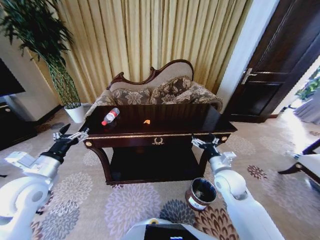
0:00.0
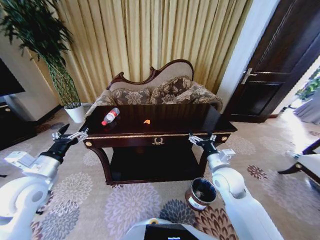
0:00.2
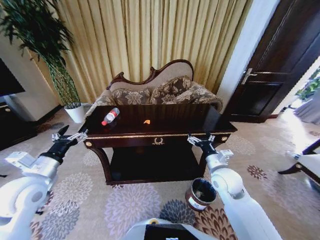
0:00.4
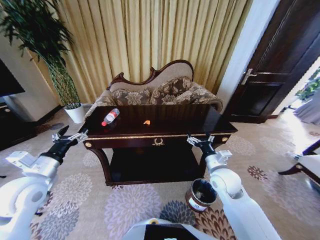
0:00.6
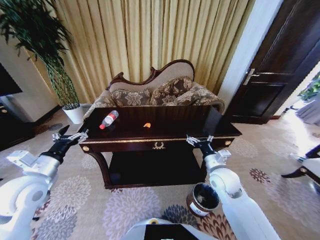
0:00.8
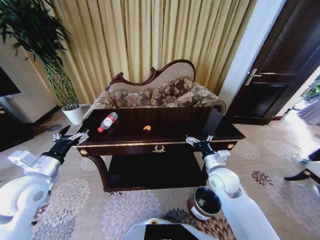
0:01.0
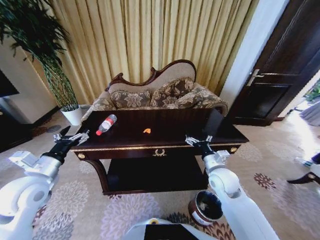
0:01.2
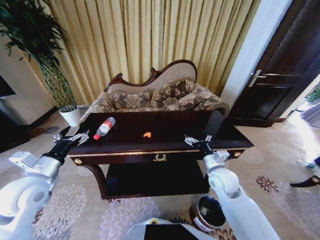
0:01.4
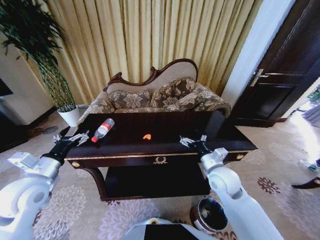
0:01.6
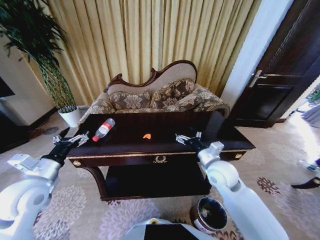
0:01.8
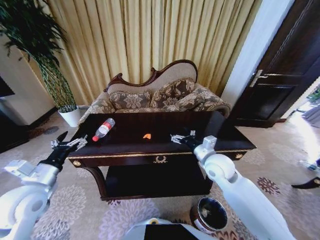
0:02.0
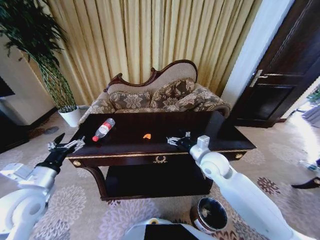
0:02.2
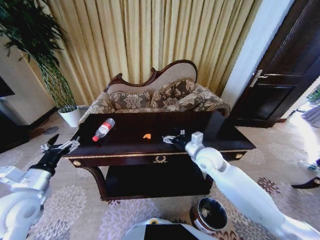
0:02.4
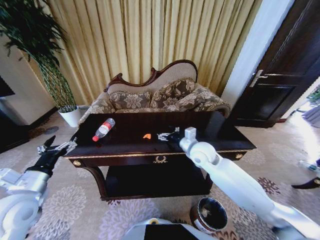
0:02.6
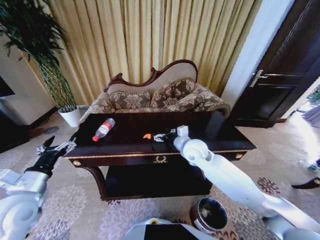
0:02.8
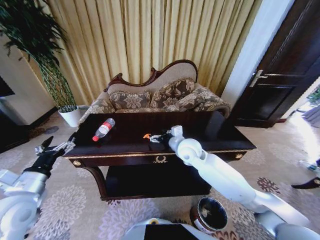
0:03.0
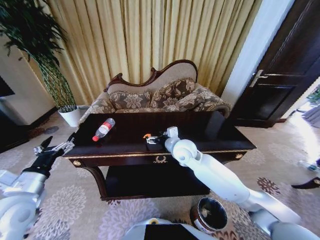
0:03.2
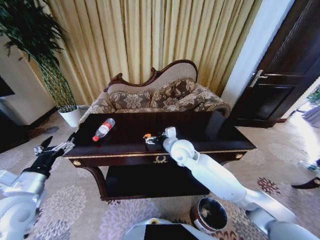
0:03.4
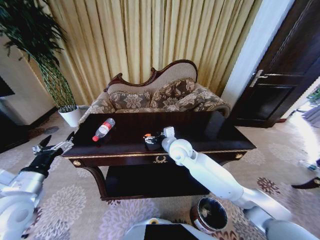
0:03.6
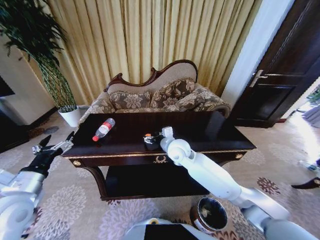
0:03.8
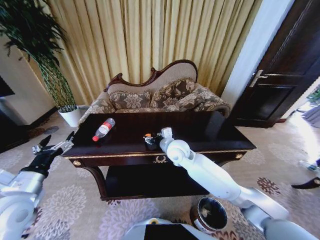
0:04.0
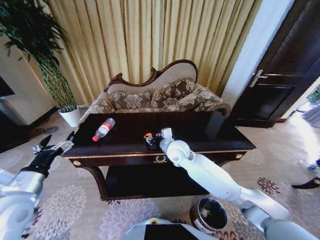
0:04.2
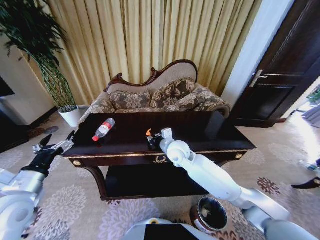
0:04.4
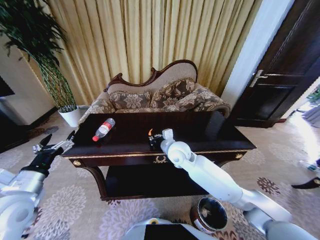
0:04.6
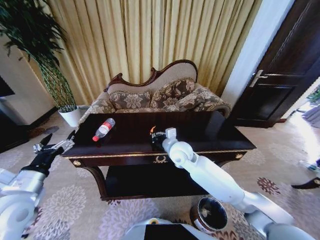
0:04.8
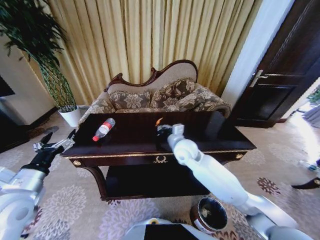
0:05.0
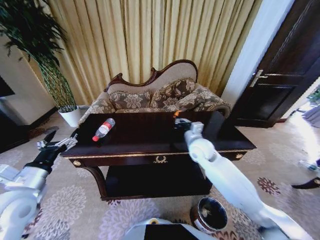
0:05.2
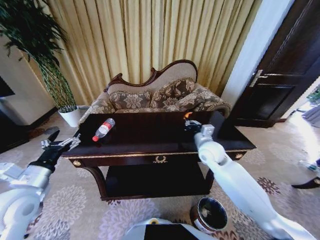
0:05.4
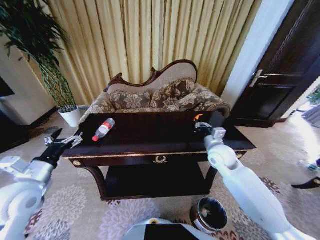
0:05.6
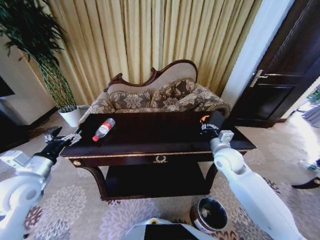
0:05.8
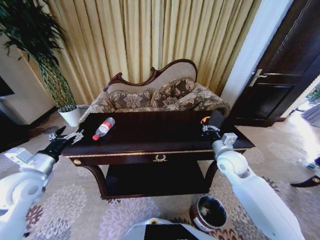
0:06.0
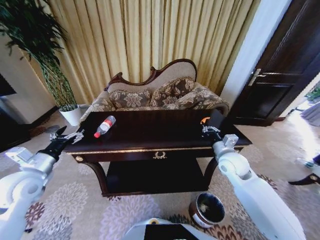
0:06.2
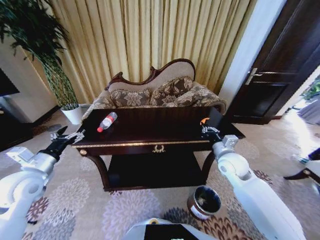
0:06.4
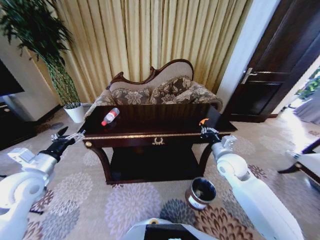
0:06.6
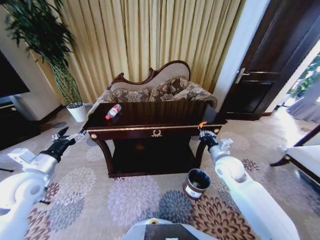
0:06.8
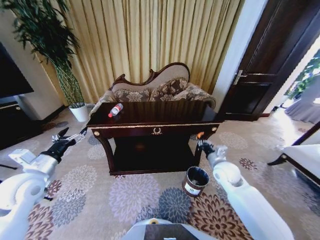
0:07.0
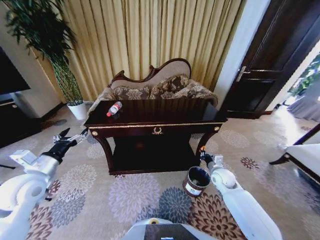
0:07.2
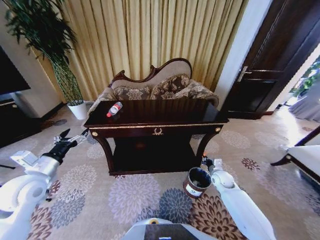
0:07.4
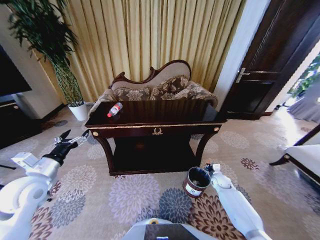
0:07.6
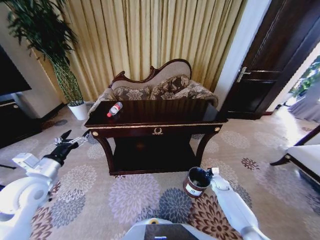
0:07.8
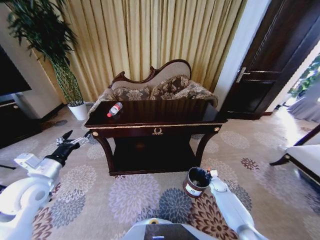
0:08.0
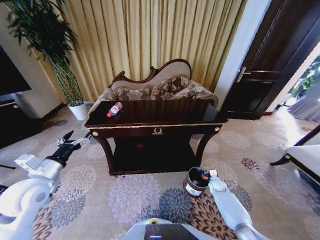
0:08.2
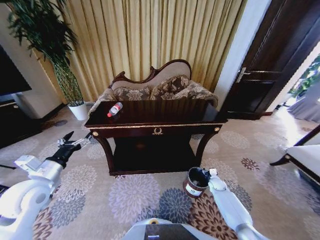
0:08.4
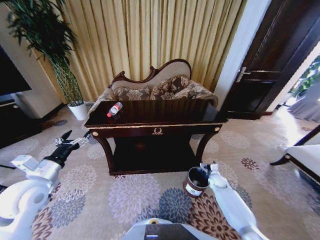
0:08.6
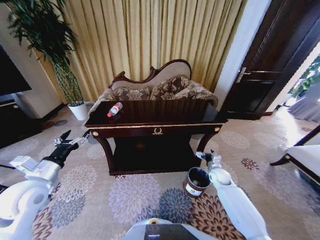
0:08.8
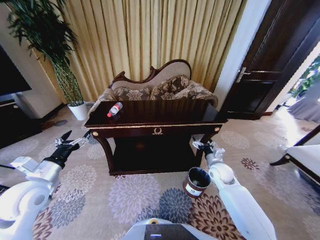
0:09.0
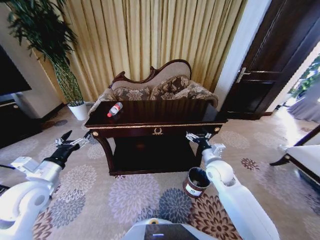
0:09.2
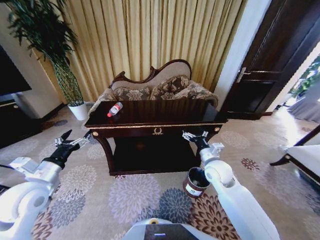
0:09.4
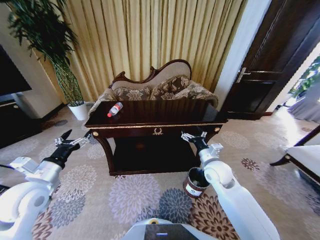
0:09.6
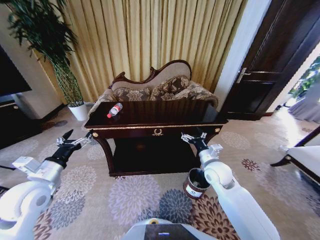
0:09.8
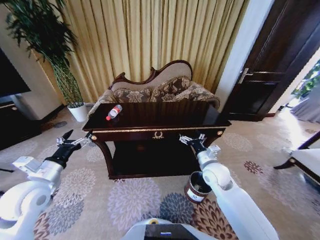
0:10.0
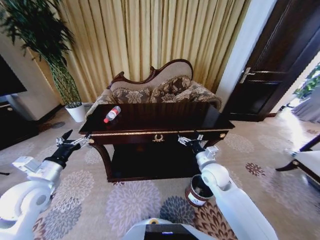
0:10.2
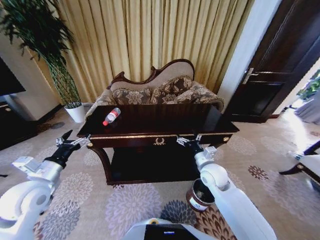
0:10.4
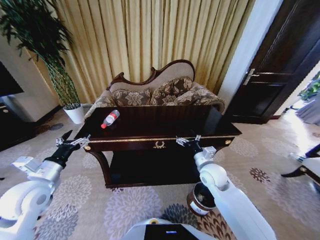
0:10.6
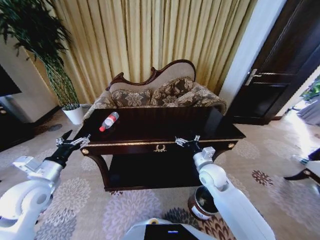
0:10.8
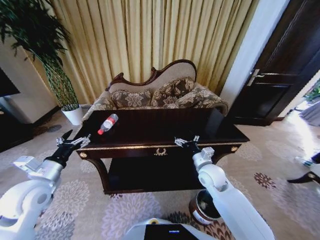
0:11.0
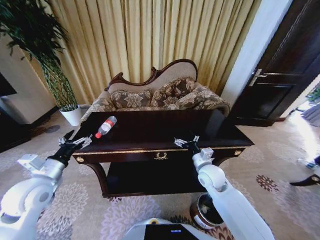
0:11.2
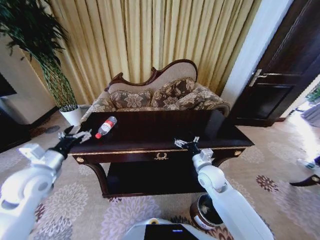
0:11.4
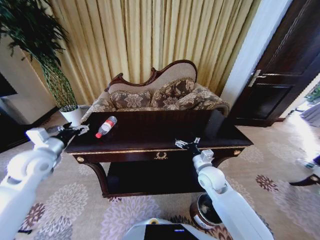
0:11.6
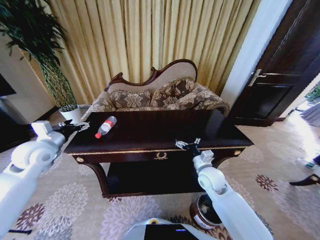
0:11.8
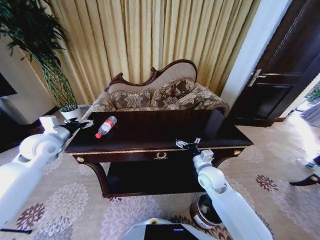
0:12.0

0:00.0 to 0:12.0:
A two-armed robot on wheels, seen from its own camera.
Task of the whole recording: Move to the front of the table and place the trash on the table into the trash bin.
0:01.6 to 0:03.0: The right gripper heads to the left and forward, covering some 15 cm.
0:03.0 to 0:04.4: The right gripper closes.
0:04.4 to 0:06.0: The right gripper travels to the right by about 20 cm; the left gripper shifts about 5 cm forward.
0:06.0 to 0:07.6: The right gripper is displaced downward by roughly 25 cm.
0:07.6 to 0:09.0: The right gripper heads upward and to the left, covering some 20 cm, and opens.
0:09.0 to 0:10.4: The right gripper heads to the left and upward, covering some 10 cm.
0:10.4 to 0:12.0: The left gripper goes about 15 cm forward.

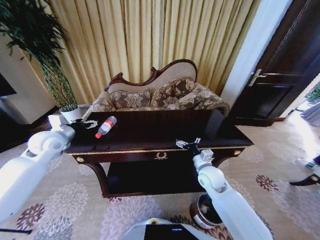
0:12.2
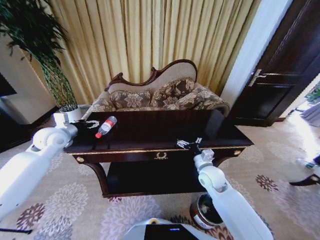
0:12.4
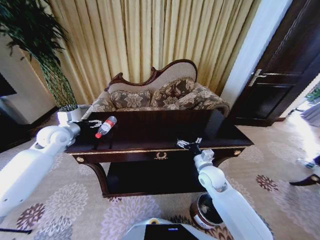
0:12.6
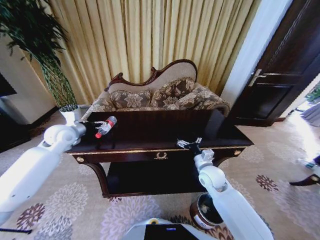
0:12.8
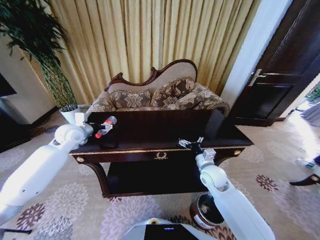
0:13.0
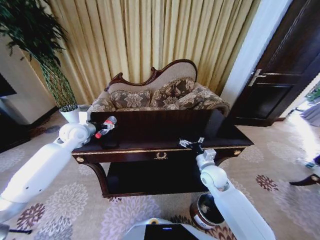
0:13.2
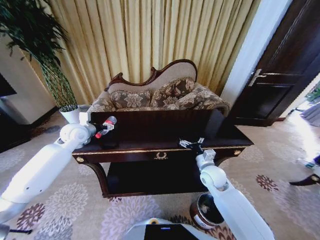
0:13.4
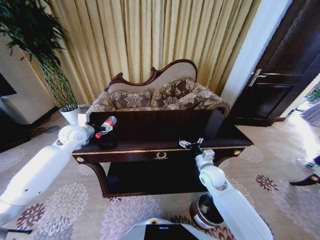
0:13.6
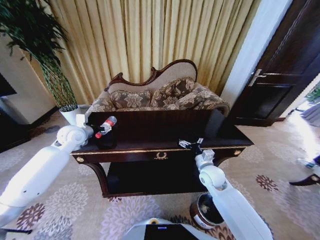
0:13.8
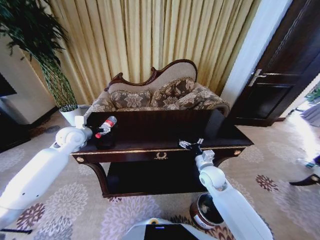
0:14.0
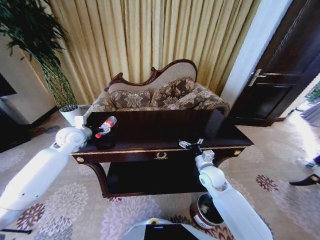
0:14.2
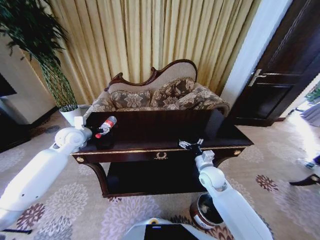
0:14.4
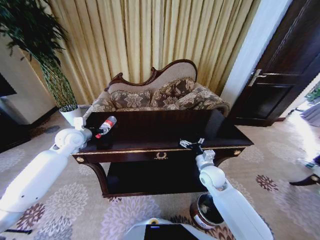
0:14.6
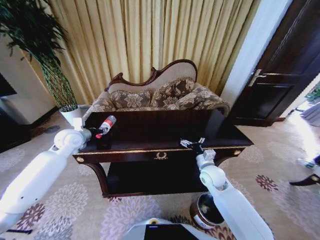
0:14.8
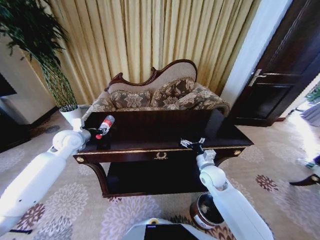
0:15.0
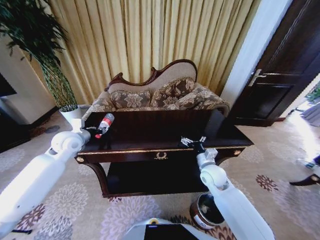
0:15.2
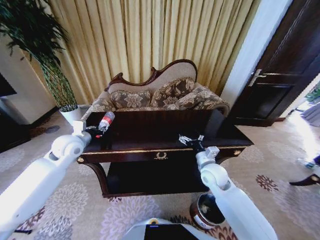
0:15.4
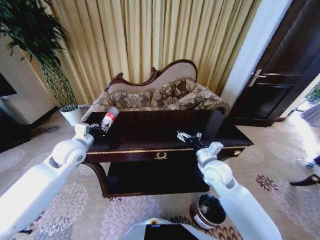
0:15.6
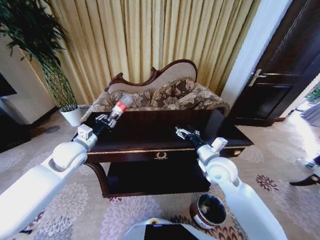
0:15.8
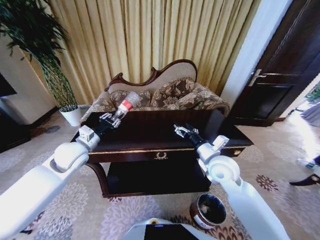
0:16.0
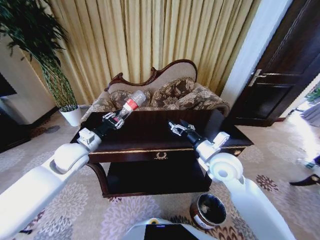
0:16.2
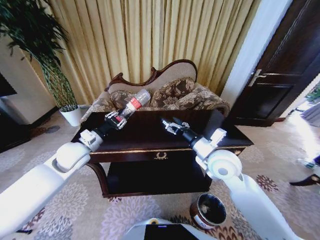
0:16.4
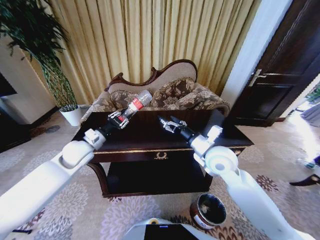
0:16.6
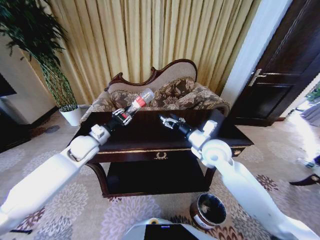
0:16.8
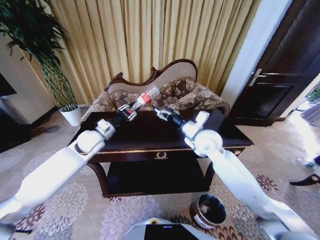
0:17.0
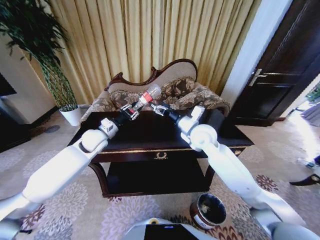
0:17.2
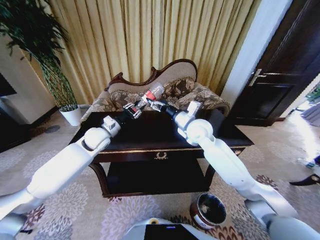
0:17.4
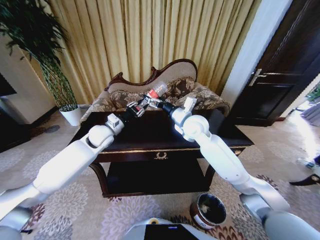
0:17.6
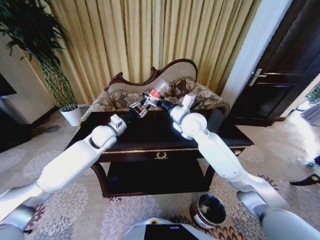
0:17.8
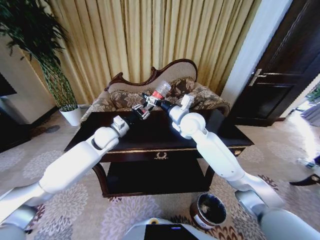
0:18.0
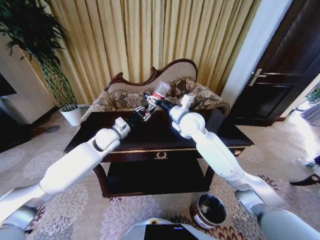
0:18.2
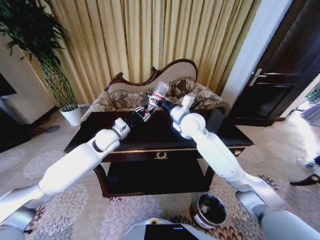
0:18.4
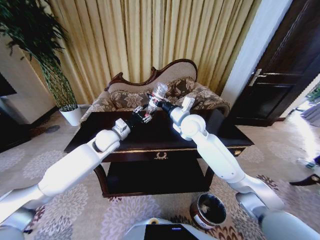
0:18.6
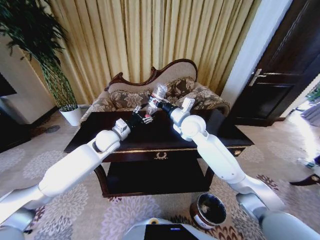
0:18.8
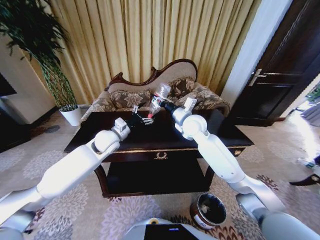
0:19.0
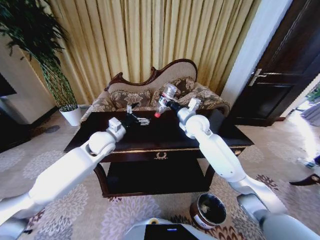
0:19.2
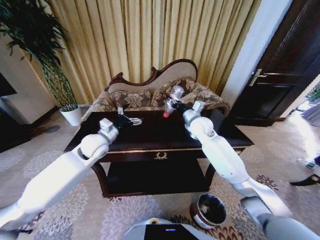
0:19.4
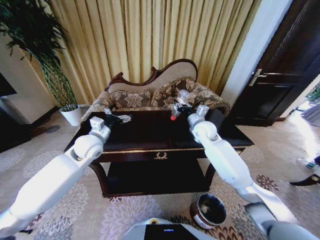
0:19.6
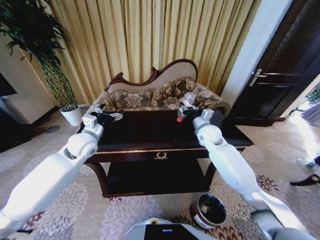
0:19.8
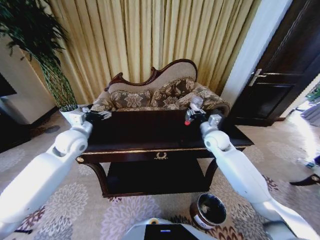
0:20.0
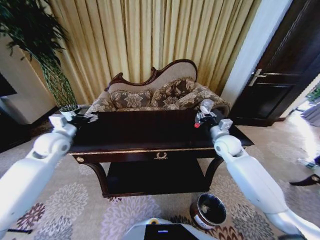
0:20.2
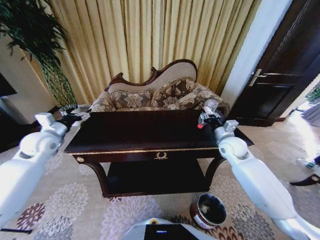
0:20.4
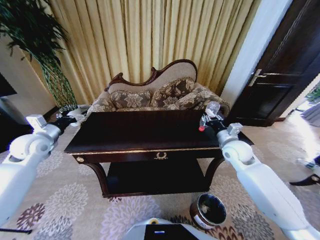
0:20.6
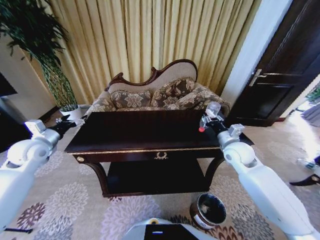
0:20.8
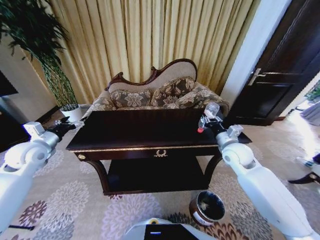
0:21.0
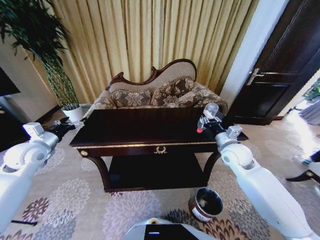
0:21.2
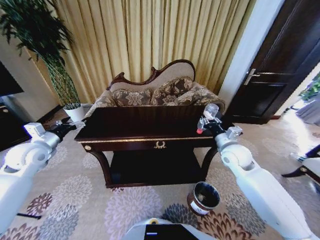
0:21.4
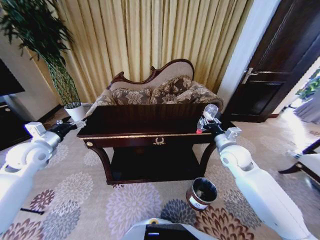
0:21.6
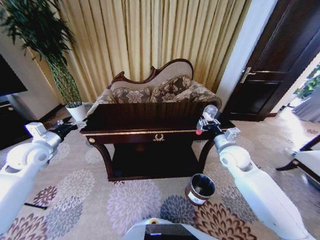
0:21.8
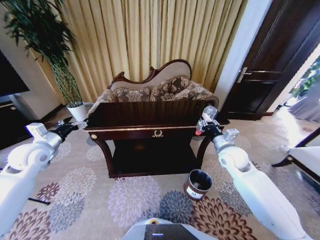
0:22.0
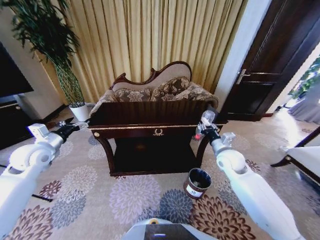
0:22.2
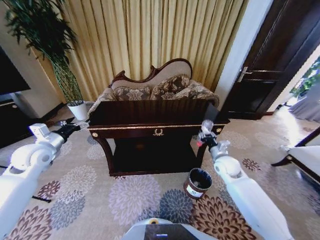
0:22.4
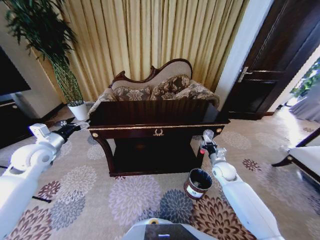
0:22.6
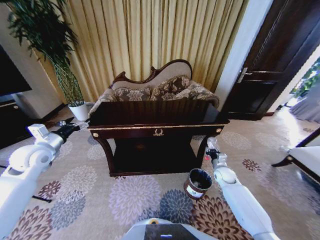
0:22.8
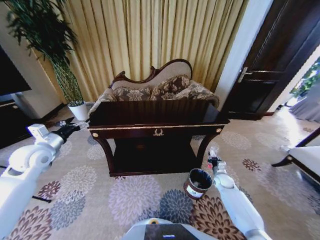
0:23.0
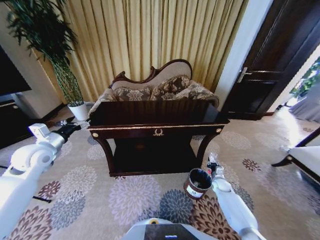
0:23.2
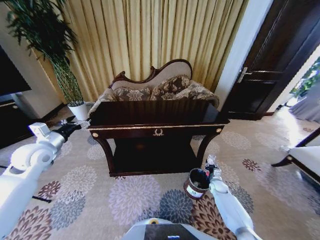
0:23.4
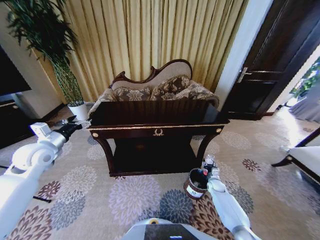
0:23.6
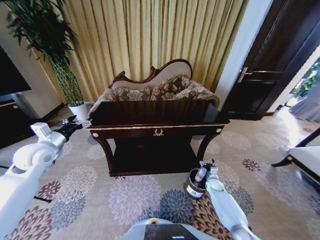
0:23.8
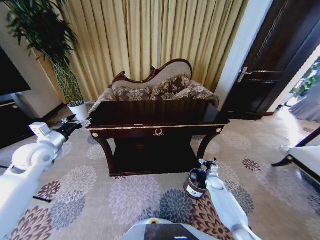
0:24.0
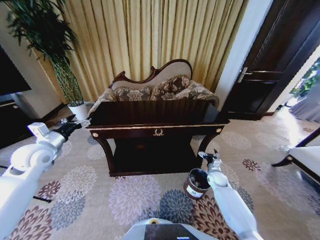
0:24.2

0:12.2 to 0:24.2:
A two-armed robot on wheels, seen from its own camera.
Task of the whole recording: Move to the front of the table and place the trash on the table into the trash bin.
0:12.2 to 0:13.8: The left gripper shifts by some 5 cm.
0:13.8 to 0:15.2: The left gripper closes its fingers.
0:15.2 to 0:16.6: The left gripper goes approximately 5 cm to the right, while the right gripper travels upward by about 15 cm.
0:16.6 to 0:18.2: The left gripper is displaced to the right and forward by roughly 10 cm. The right gripper moves forward and to the left, roughly 15 cm.
0:18.2 to 0:19.8: The left gripper heads to the left, covering some 10 cm, and opens its fingers. The right gripper heads to the right and downward, covering about 15 cm, and closes.
0:19.8 to 0:21.2: The right gripper shifts approximately 10 cm backward and to the right. The left gripper is displaced to the left by roughly 15 cm.
0:21.2 to 0:22.6: The right gripper heads downward, covering about 15 cm.
0:22.6 to 0:24.2: The right gripper goes approximately 10 cm downward, and opens.
